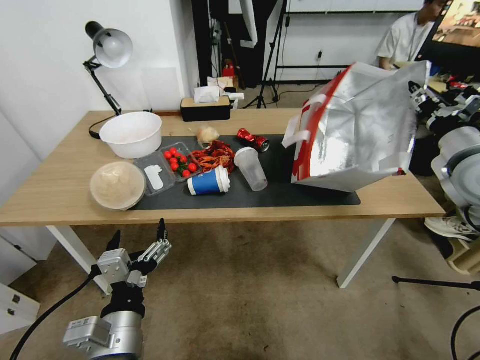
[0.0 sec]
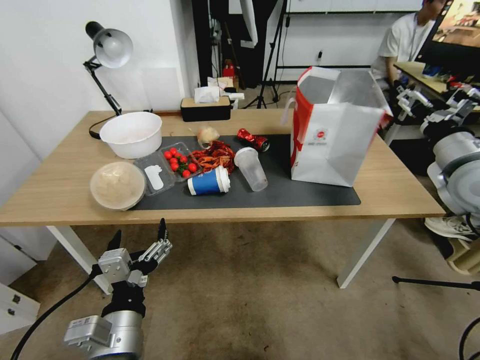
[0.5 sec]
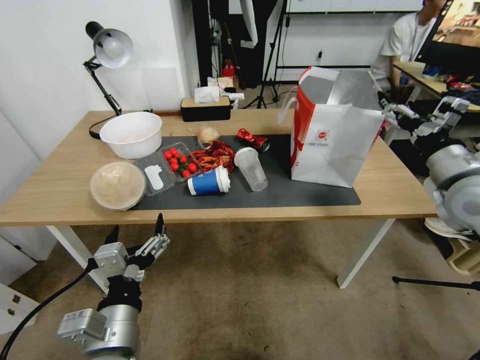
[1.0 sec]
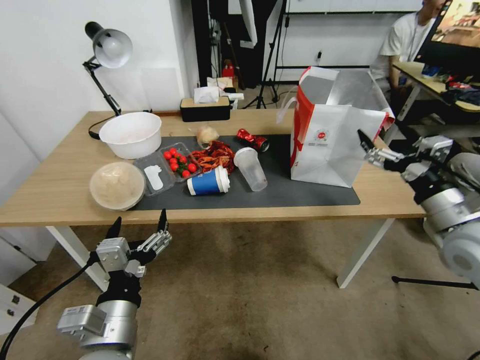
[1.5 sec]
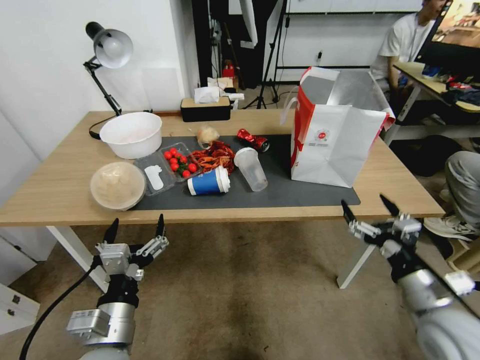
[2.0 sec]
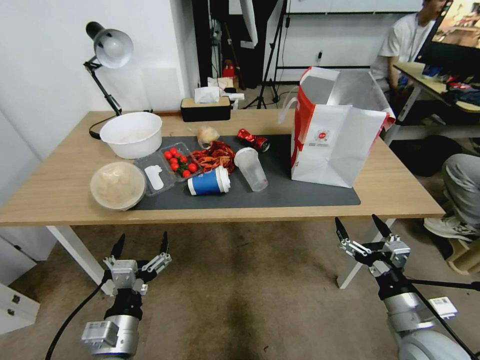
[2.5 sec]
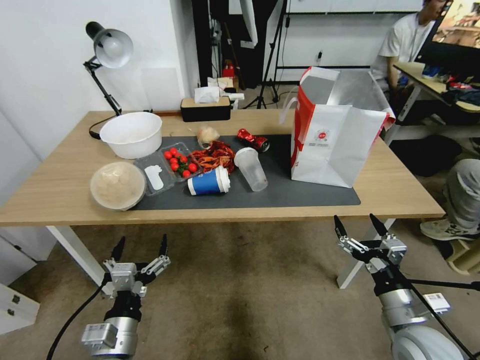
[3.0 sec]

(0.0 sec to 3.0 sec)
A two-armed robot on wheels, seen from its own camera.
Task of the whole recording: Pick up the food delivery bag from the floor and place it on the table.
0.0 sec - 1.5 sec: The right gripper heads backward and downward, covering roughly 10 cm, and opens its fingers.
1.5 sec - 3.0 sec: The right gripper travels downward and backward by about 20 cm; the left gripper goes approximately 10 cm downward.

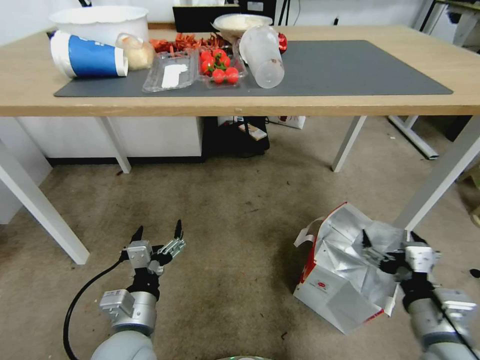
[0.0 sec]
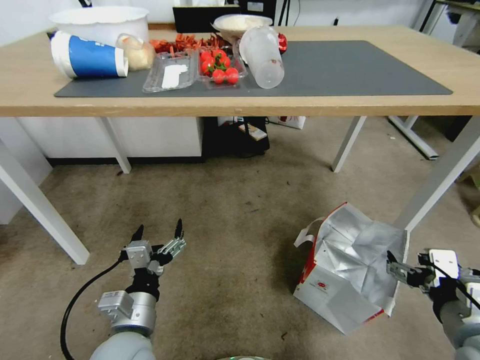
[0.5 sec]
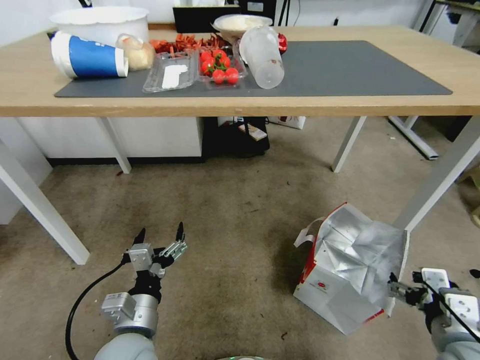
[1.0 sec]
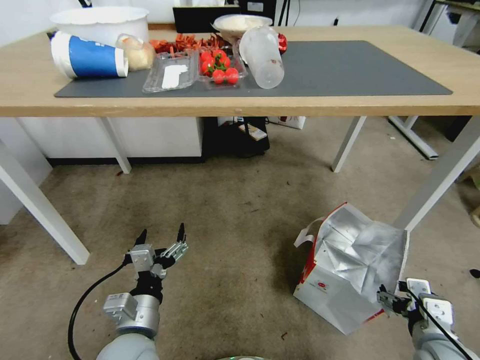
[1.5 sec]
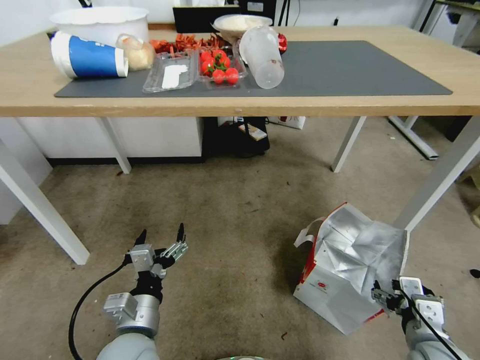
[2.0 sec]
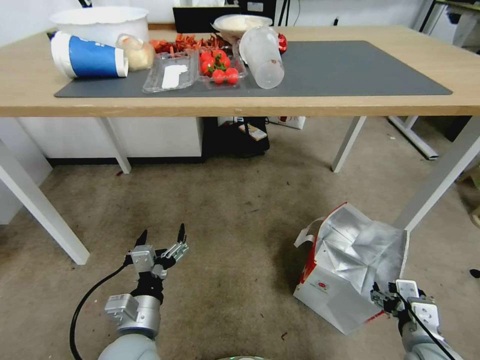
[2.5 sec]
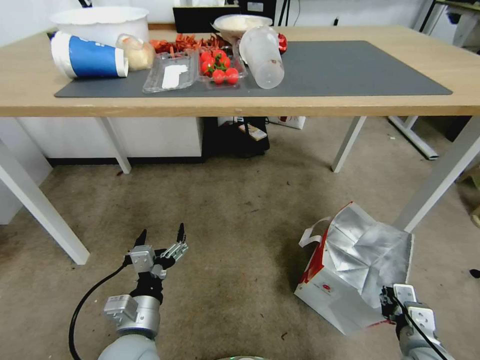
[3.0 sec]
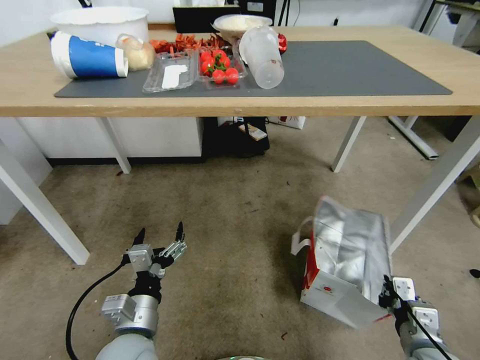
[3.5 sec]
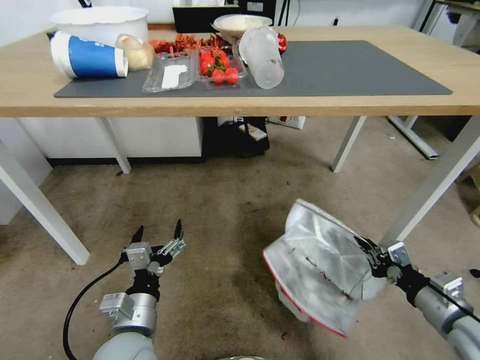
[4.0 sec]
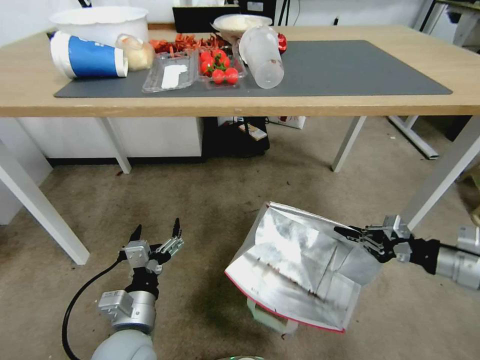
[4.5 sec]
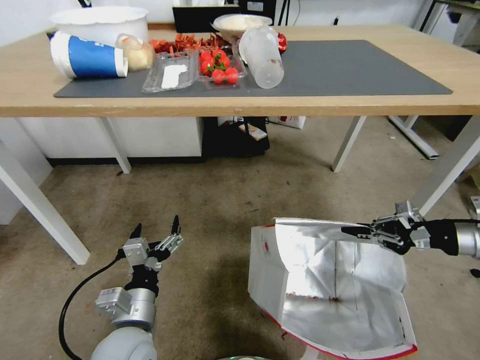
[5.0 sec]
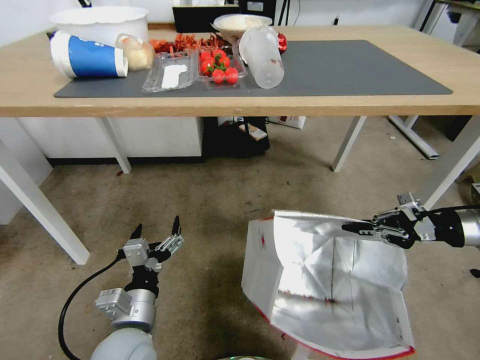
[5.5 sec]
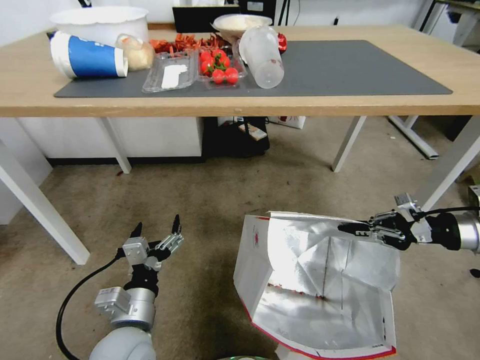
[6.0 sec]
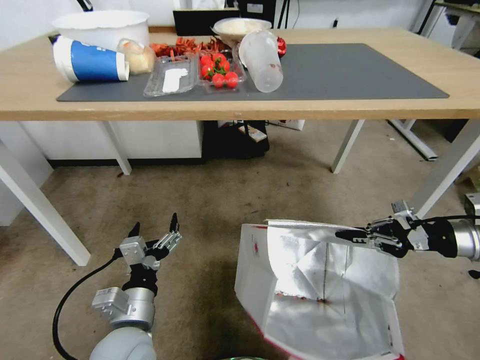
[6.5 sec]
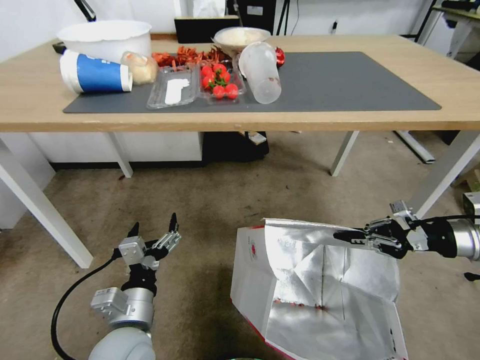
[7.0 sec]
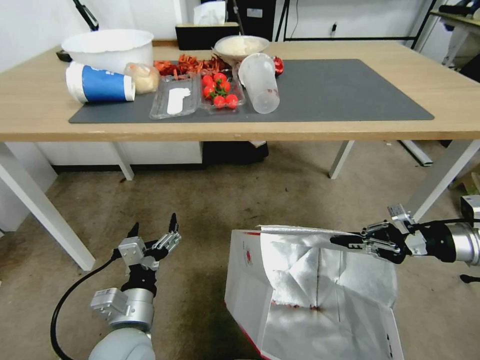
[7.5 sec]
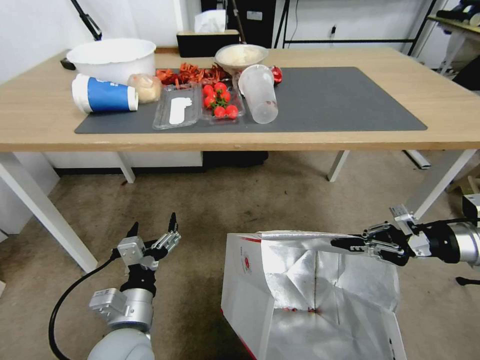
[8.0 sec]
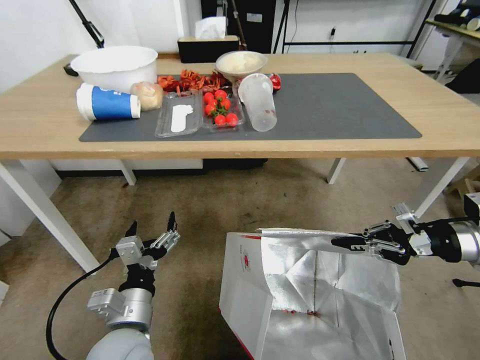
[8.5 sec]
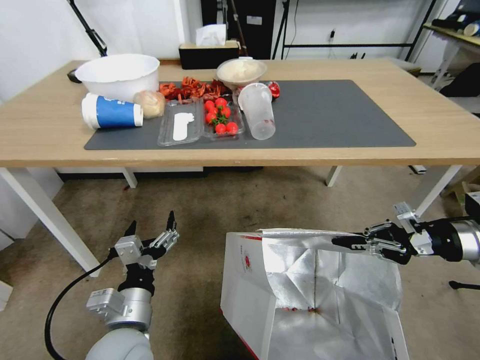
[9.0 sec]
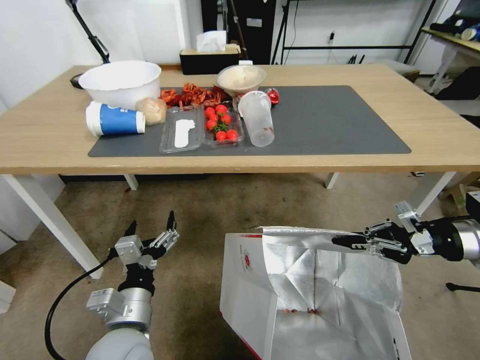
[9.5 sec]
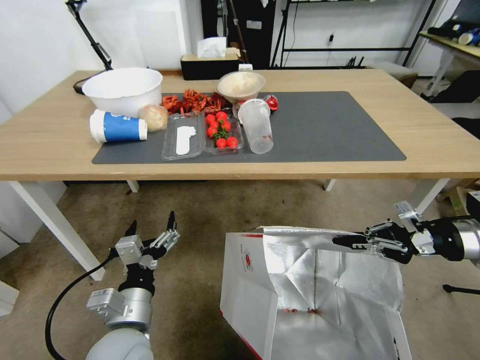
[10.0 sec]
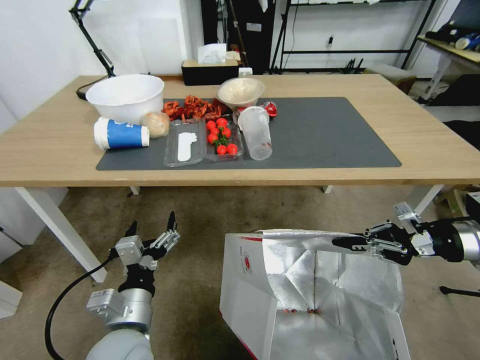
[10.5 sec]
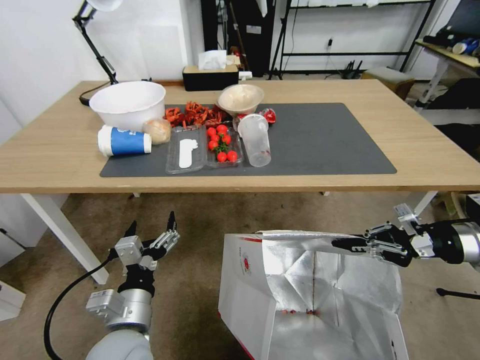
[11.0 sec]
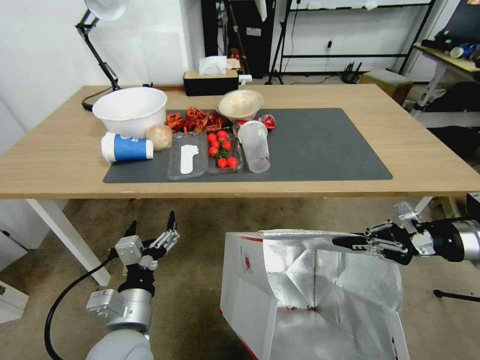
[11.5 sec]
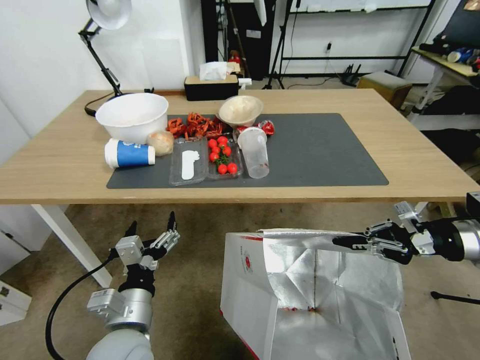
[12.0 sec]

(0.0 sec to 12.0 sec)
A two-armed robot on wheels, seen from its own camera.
Task of the whole recording: Pick up the food delivery bag from the floor and place it on the table.
0.0 sec - 2.0 sec: The right gripper shifts roughly 5 cm downward.
2.0 sec - 4.0 sec: The right gripper moves to the right, about 5 cm, and closes up.
4.0 sec - 6.0 sec: The right gripper shifts roughly 20 cm forward, upward and to the right.

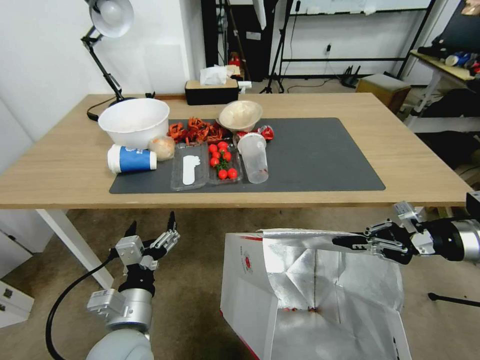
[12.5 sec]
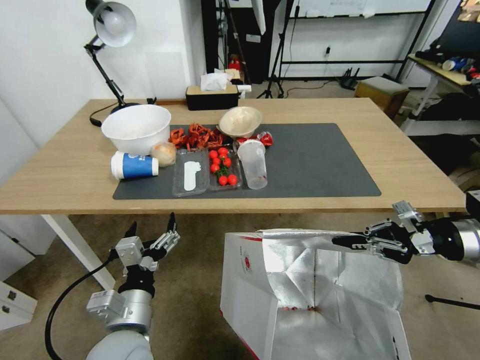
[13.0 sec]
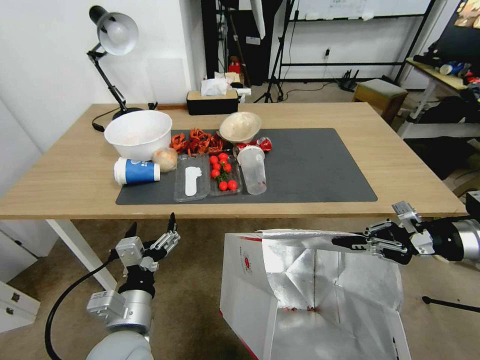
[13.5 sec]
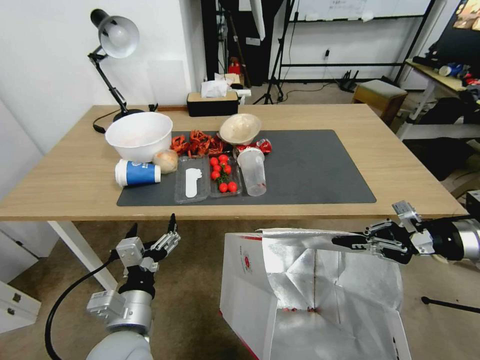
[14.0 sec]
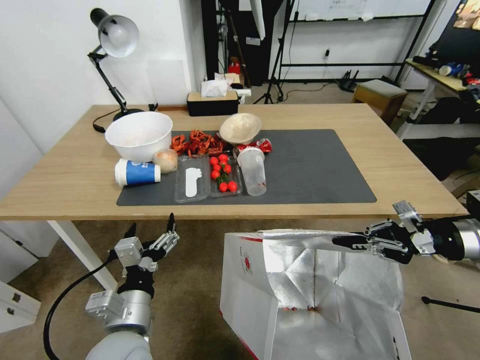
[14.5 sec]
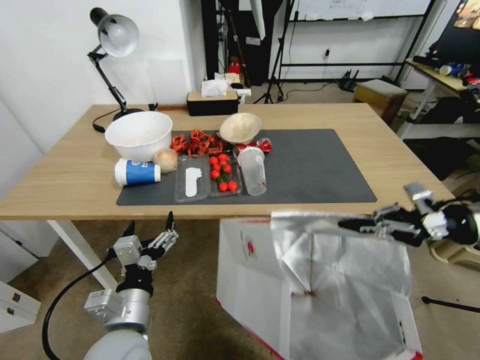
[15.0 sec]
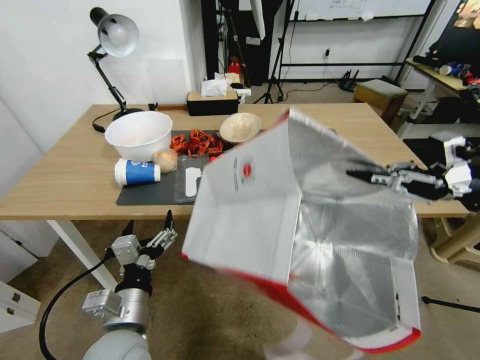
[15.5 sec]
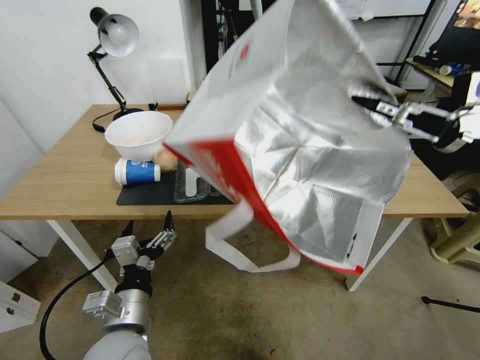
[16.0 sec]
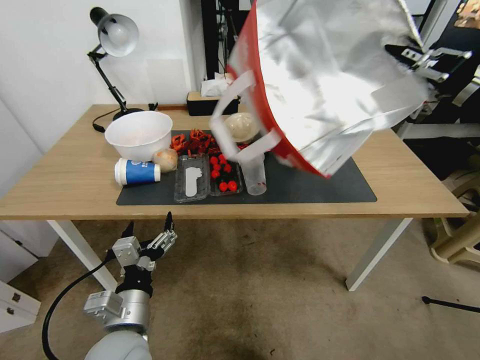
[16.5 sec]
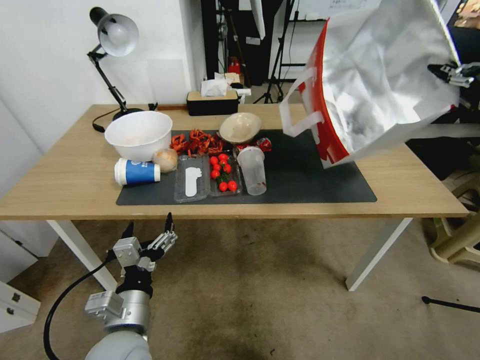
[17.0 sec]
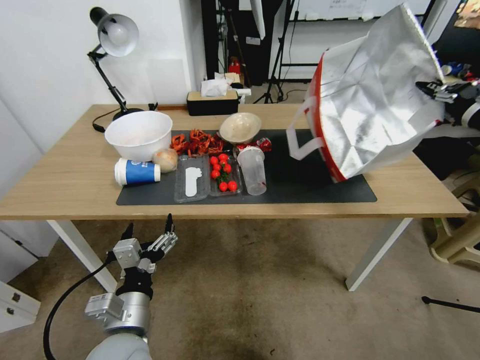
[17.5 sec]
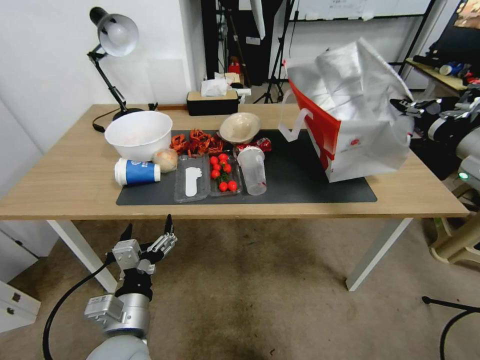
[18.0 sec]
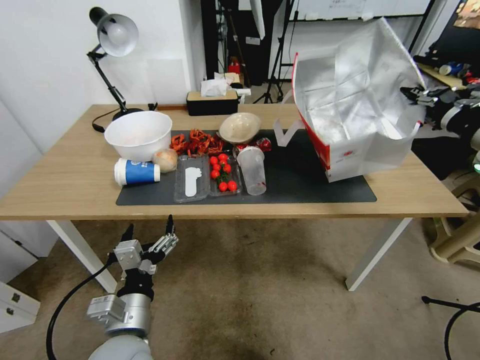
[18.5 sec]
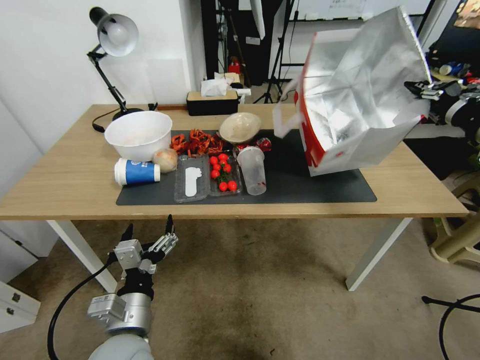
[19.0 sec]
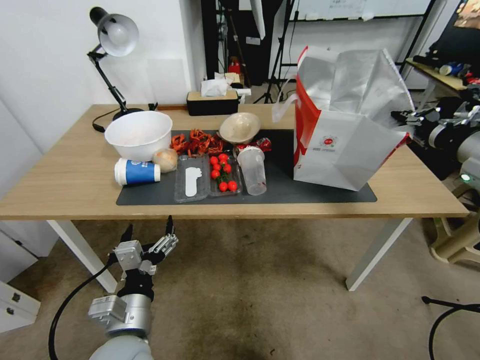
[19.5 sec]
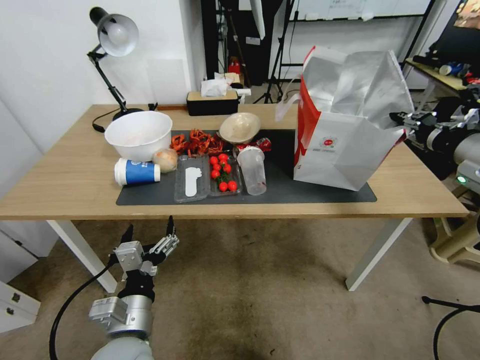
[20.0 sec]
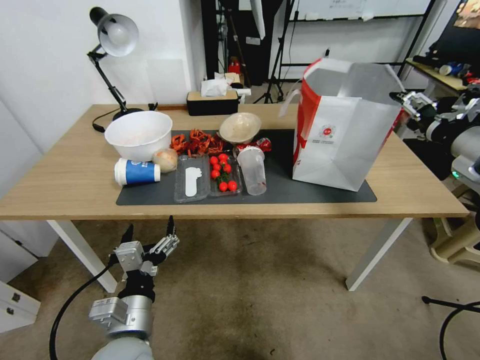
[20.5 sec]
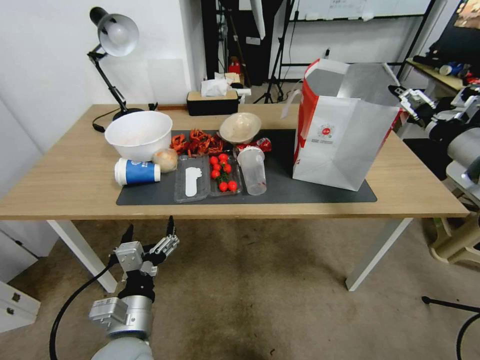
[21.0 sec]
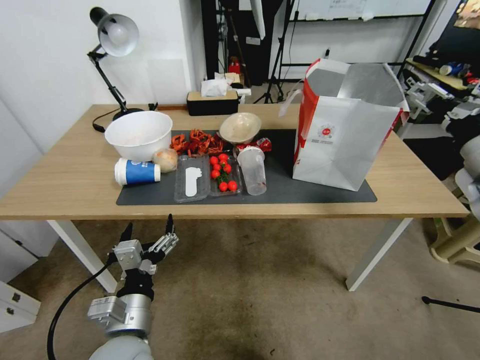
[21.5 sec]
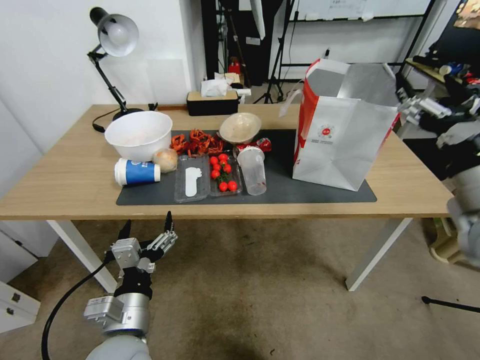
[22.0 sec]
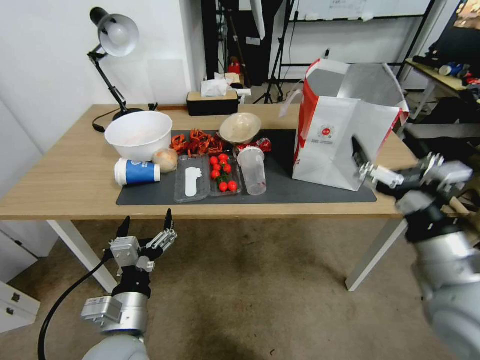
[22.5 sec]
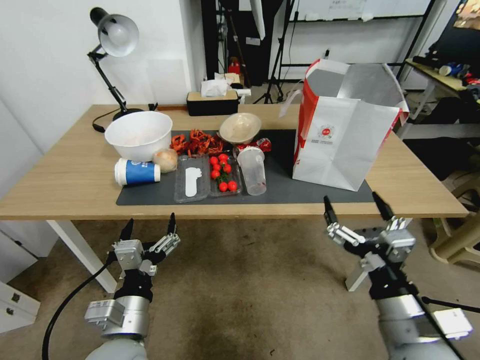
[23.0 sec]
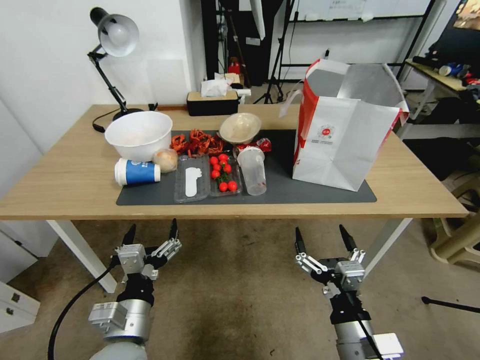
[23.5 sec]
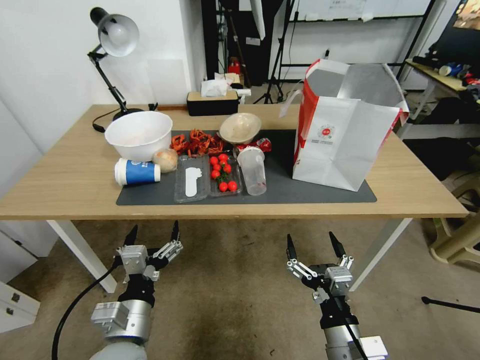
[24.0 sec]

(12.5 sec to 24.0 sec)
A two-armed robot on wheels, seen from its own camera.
Task of the whole recording: Pick up the food delivery bag from the floor and place it on the table.
14.5 sec - 16.5 sec: The right gripper shifts roughly 15 cm upward.
18.5 sec - 20.0 sec: There are only small adjustments of the grippers.
20.0 sec - 22.0 sec: The right gripper is displaced backward and to the left by approximately 10 cm, and opens.
22.0 sec - 24.0 sec: The right gripper moves downward, to the left and backward, roughly 30 cm.
